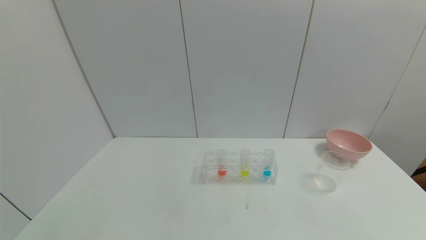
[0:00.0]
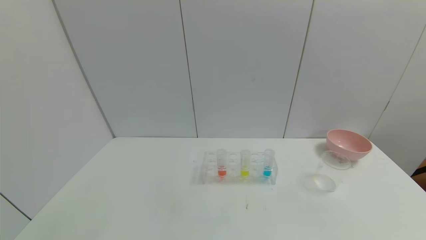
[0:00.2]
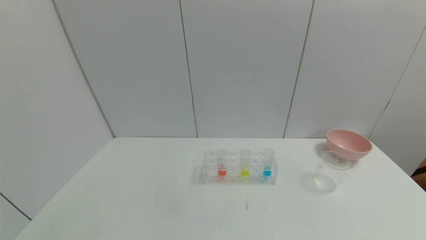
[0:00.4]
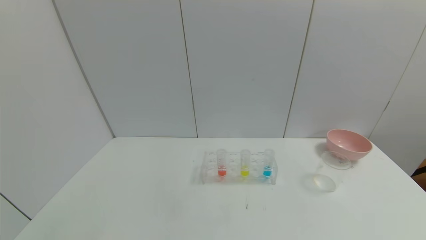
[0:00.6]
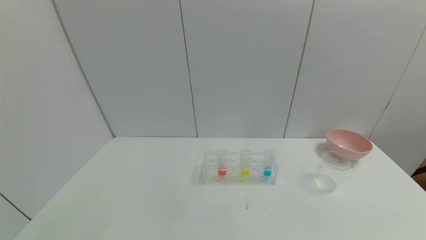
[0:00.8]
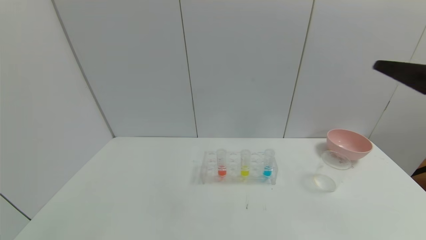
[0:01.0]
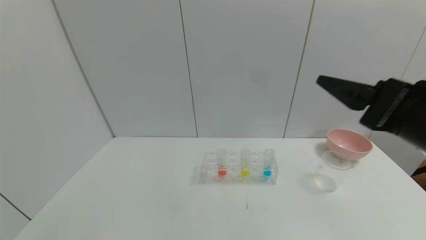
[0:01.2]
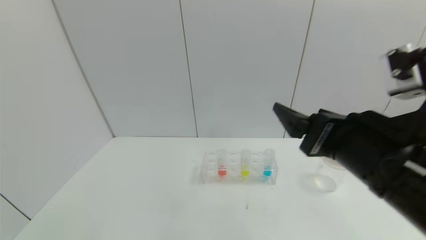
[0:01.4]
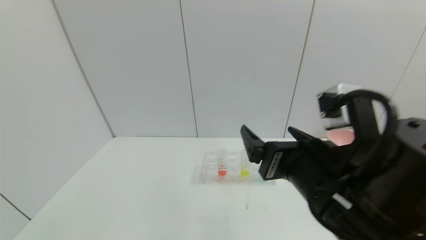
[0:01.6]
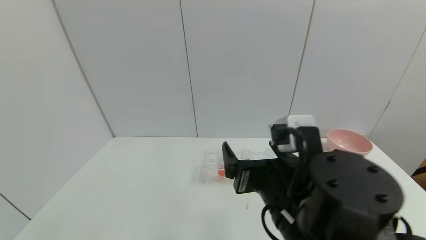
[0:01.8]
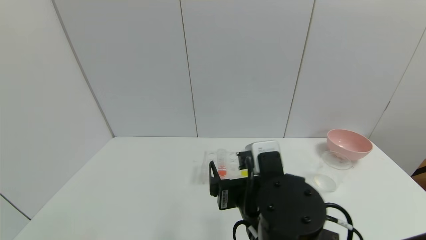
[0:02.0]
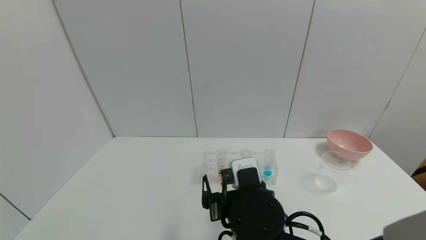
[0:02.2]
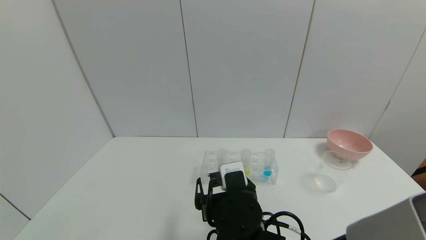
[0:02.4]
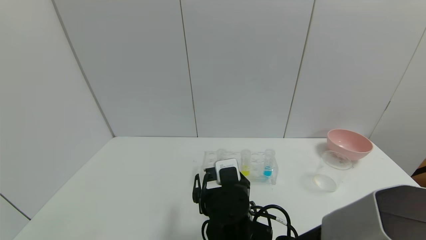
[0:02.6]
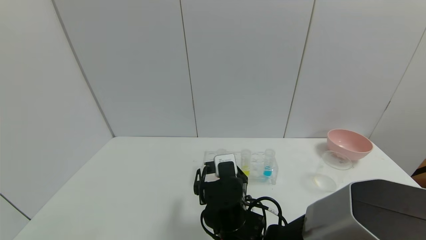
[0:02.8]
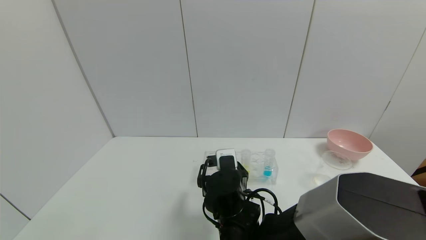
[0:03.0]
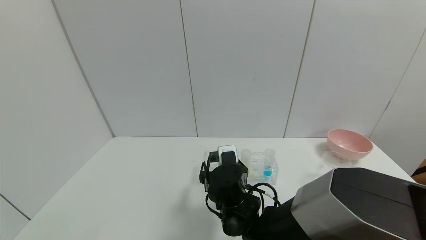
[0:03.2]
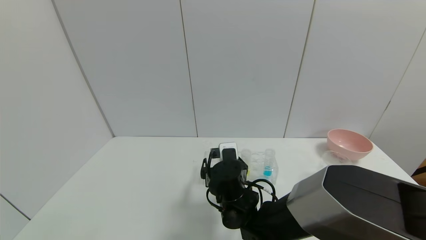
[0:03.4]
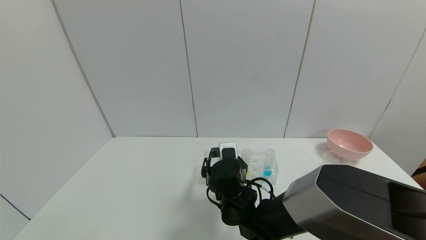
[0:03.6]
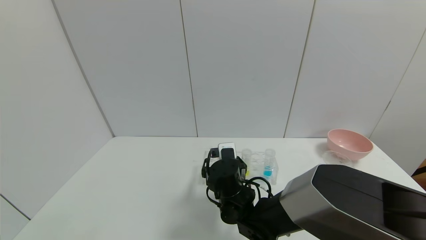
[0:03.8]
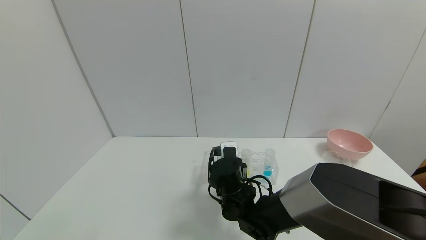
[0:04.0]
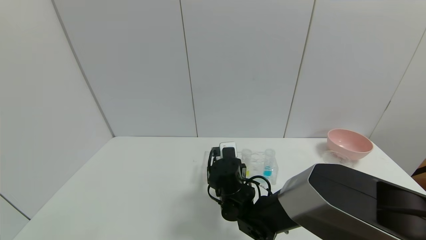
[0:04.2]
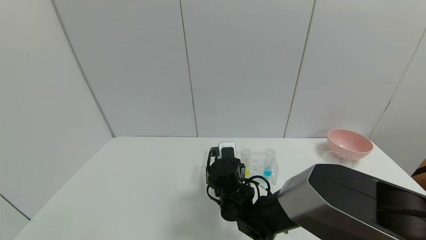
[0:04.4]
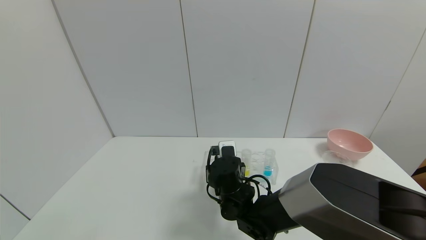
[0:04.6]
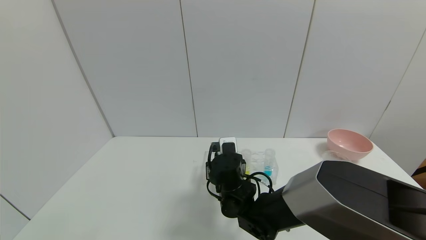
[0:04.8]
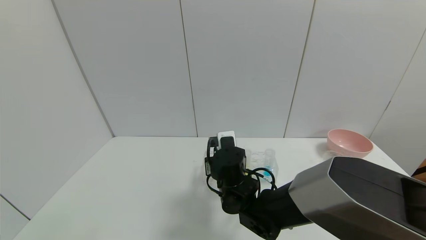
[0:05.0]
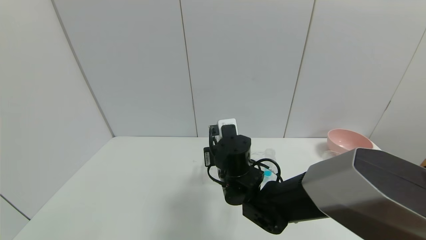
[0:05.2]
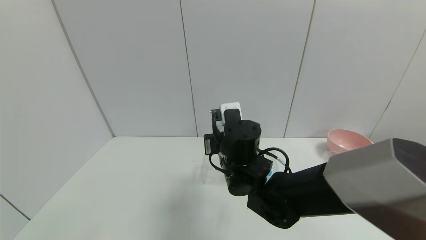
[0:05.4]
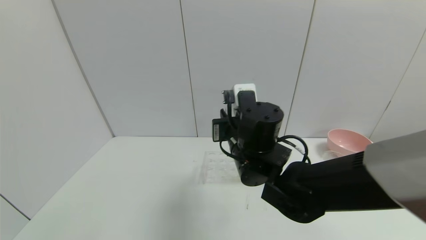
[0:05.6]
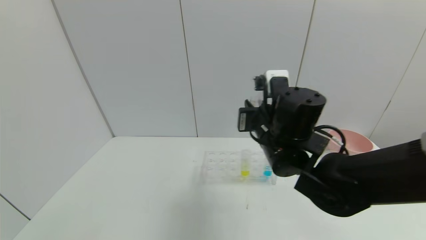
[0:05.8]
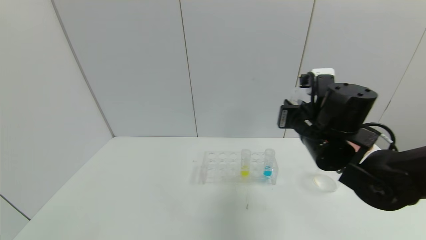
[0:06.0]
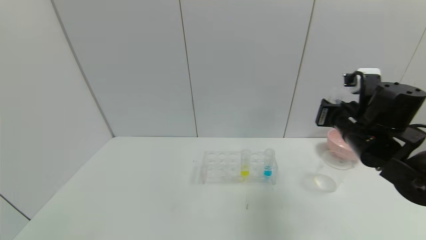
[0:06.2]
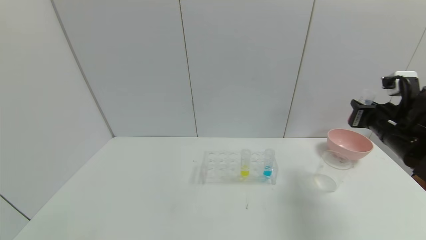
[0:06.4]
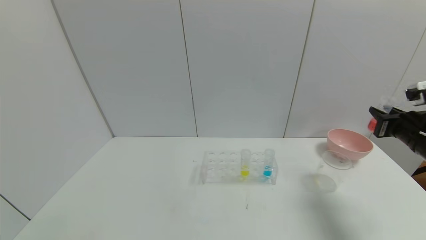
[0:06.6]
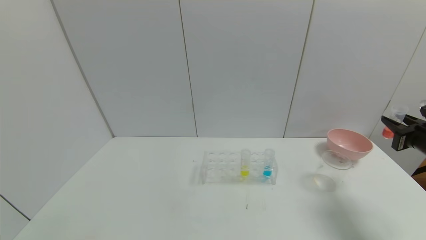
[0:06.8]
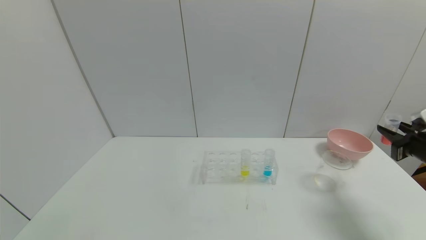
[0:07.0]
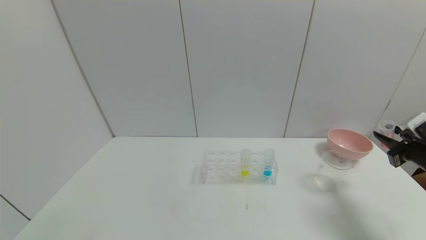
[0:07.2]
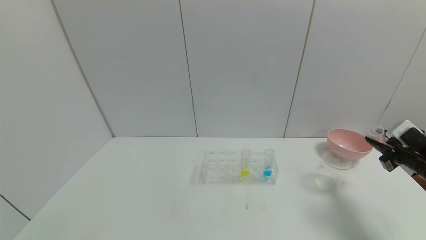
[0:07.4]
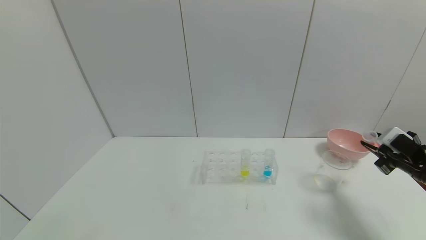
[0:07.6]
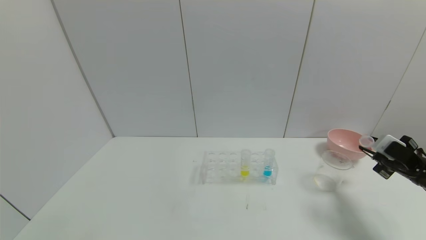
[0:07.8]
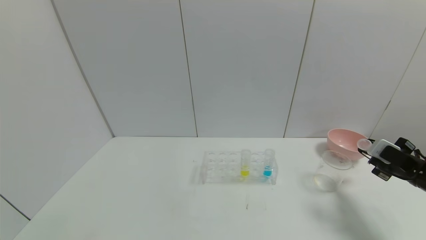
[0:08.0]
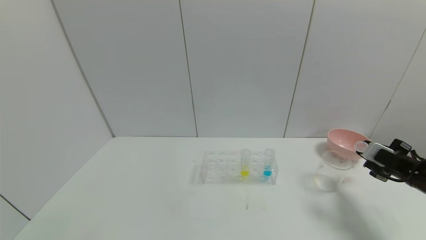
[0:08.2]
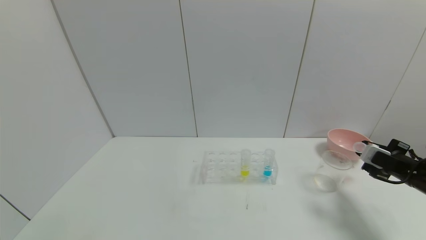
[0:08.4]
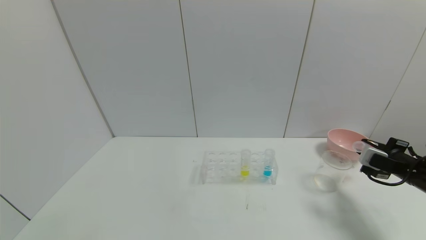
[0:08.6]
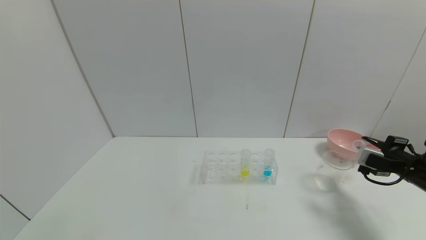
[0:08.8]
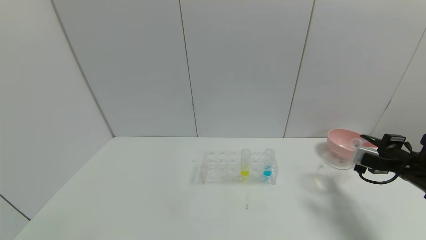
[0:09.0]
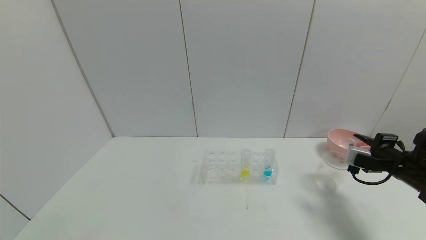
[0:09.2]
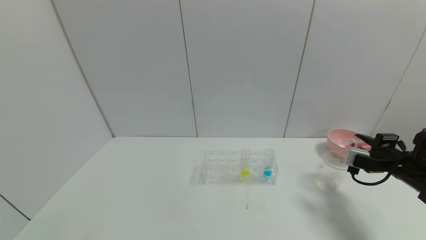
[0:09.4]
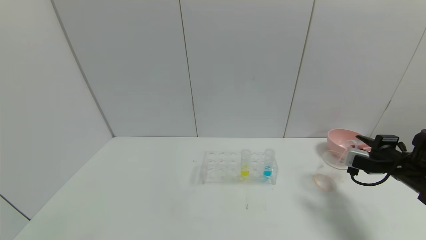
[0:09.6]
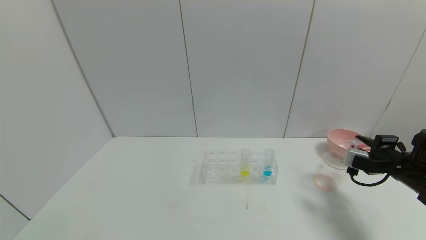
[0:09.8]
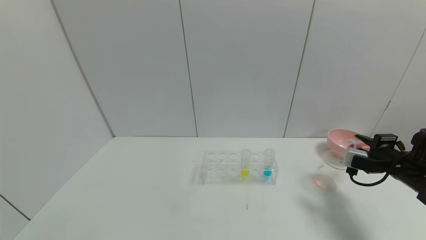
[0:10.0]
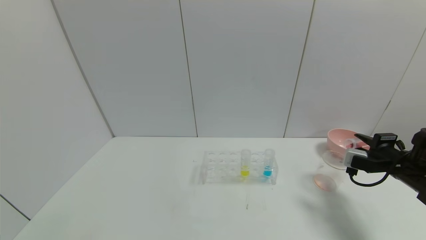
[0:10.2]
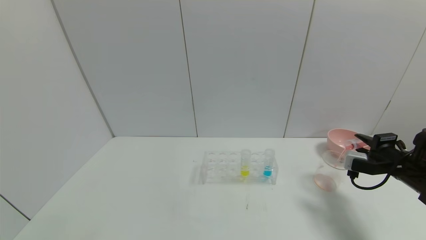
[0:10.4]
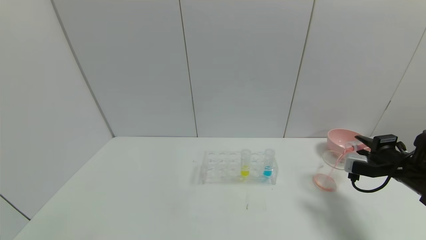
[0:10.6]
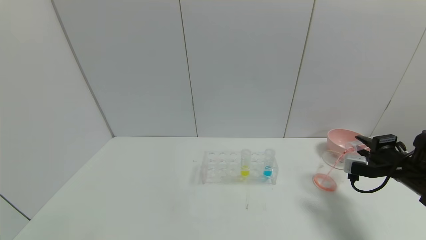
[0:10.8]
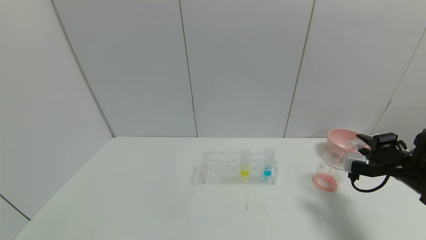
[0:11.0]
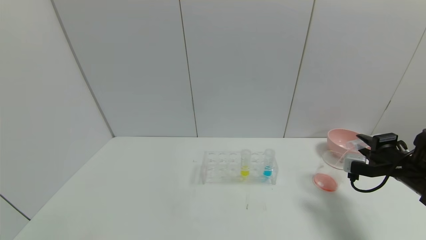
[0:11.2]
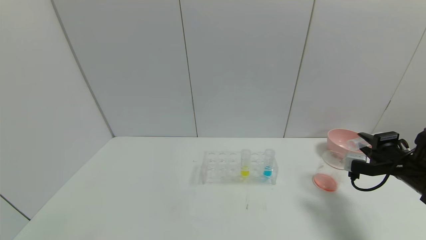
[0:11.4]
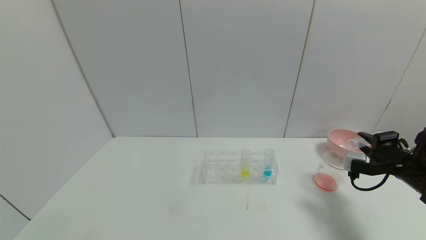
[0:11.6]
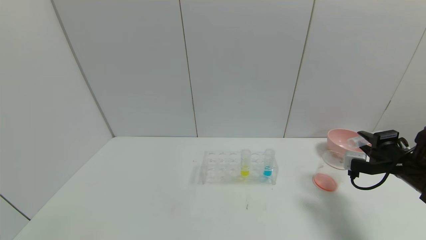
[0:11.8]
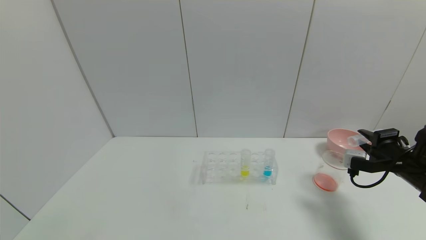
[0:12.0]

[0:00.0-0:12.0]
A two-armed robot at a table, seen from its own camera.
Task of the whole recording: pick up the test tube with yellow pigment and the test tube with red pigment by grippers and pour them into the beaker.
Step, 0:00.0 to 0:04.2: Grasp the red reagent with the right gripper.
Step, 0:04.4 to 0:11.4: Pour the red reagent into the graduated cylinder with the right gripper.
0:00.0 to 0:01.6: The right gripper is displaced to the left and forward by roughly 30 cm.
0:01.6 to 0:03.0: The right gripper travels downward, to the left and forward by about 20 cm.
0:03.0 to 0:04.4: The right gripper moves forward, about 5 cm, and closes its fingers.
0:04.4 to 0:06.0: The right gripper is displaced to the right and upward by some 25 cm.
0:06.0 to 0:07.6: The right gripper travels to the right by roughly 25 cm.
0:09.0 to 0:12.0: The grippers move only a little.

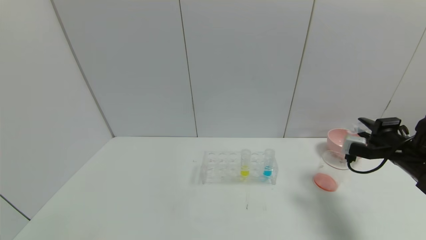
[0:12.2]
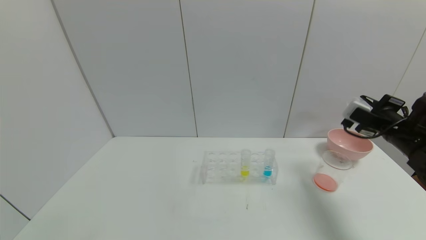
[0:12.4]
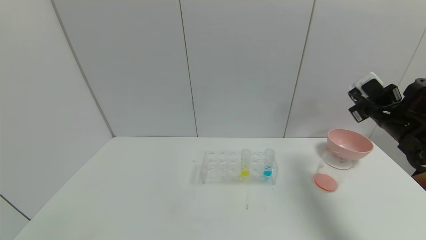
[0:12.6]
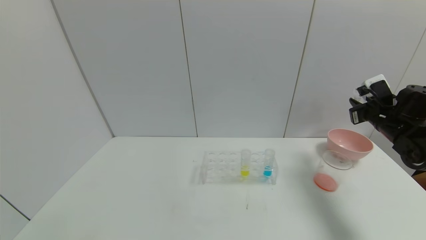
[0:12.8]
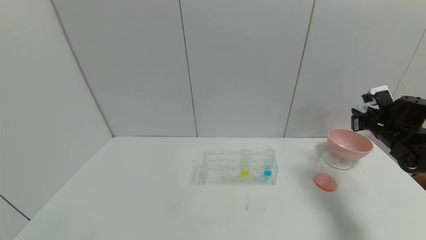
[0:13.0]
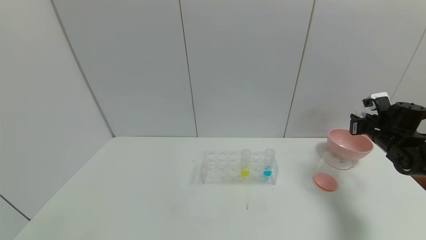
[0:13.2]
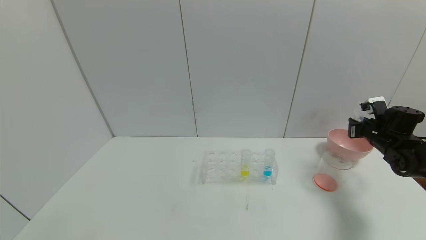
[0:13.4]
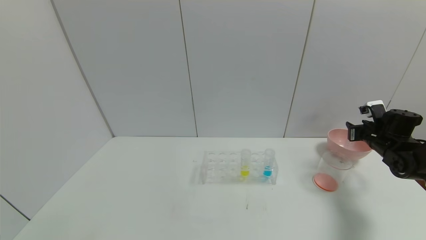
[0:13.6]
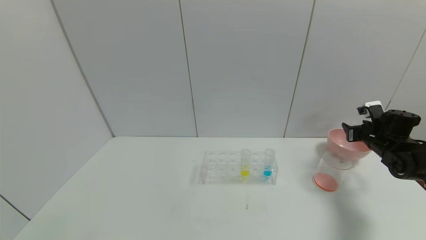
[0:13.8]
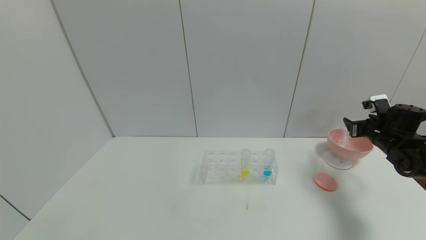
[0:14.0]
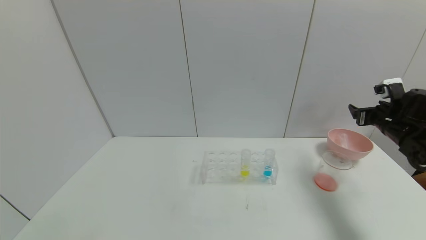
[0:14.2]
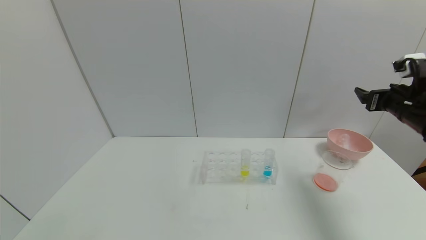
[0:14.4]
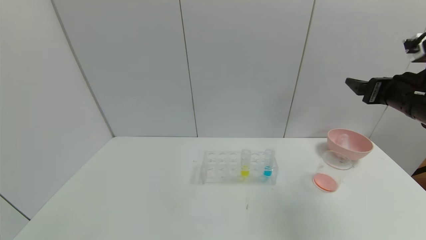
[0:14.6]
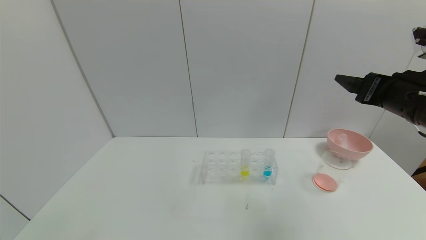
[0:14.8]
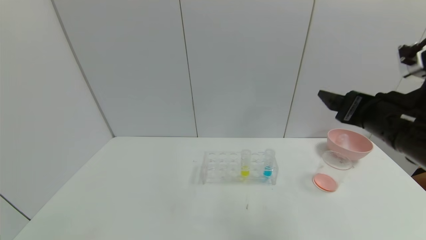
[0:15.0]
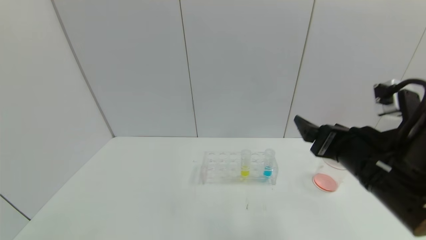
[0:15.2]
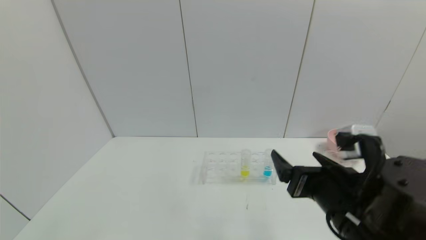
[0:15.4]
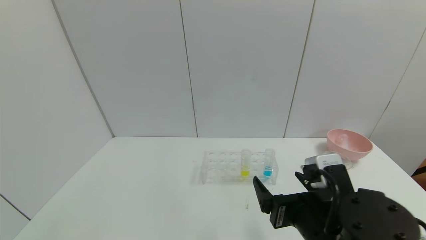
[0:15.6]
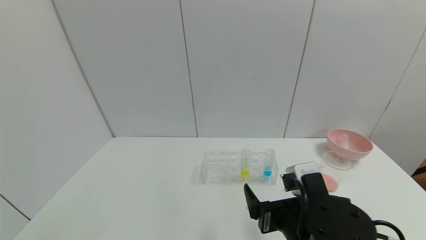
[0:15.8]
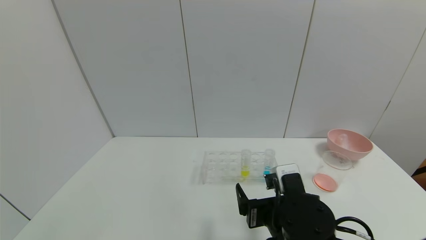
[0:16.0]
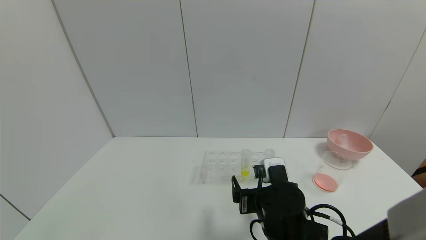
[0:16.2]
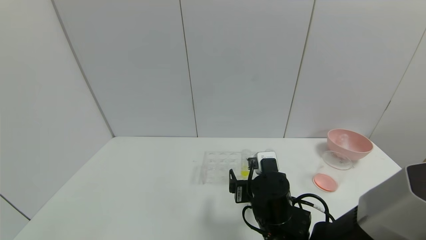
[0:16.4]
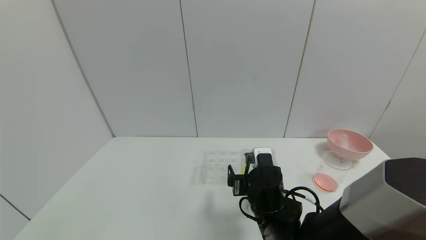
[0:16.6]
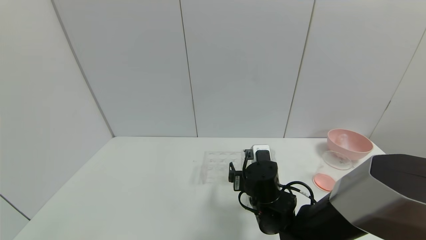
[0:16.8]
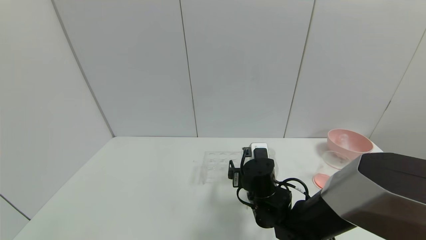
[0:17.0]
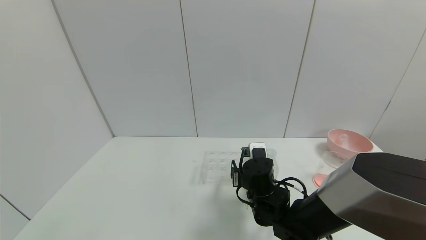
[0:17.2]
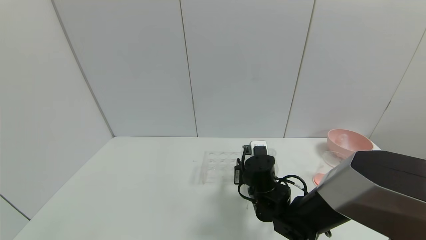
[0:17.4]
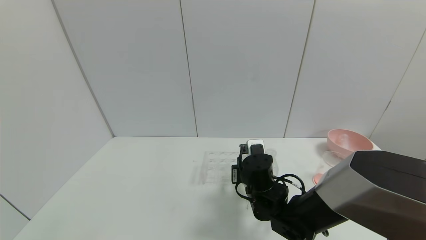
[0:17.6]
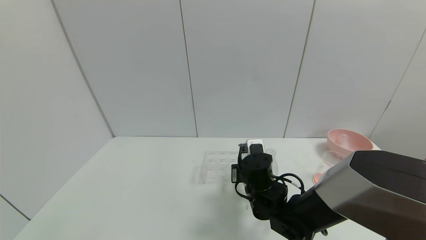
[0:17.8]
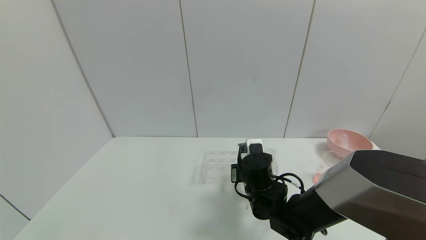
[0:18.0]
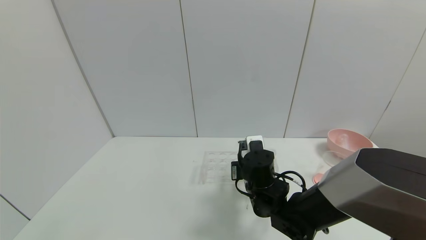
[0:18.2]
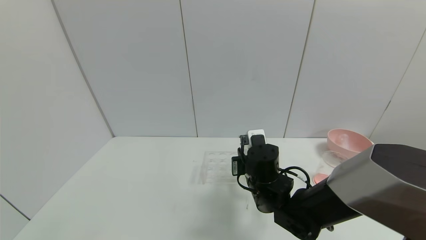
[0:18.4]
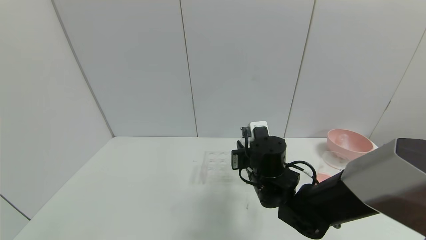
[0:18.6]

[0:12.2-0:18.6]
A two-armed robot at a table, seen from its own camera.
Task of the whole recording: pick up the test tube with yellow pigment and the test tube with red pigment by grippers and pour them into the beaker.
Step, 0:12.2 to 0:13.8: Place the test tube into the pink bowl with the right gripper.
Step, 0:14.0 to 0:17.6: Grasp the yellow reagent with the right gripper.
0:12.2 to 0:13.8: The right gripper moves forward, approximately 10 cm, and opens.
0:13.8 to 0:15.4: The right gripper goes some 35 cm to the left and backward, and opens.
0:15.4 to 0:17.0: The right gripper travels forward, downward and to the left by approximately 20 cm.
0:17.0 to 0:18.6: The right gripper travels upward by some 5 cm, and closes up.
